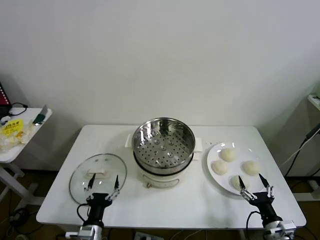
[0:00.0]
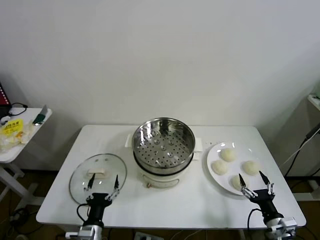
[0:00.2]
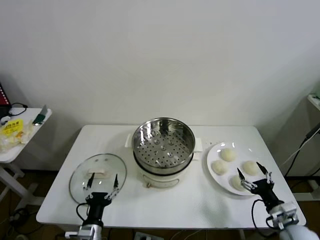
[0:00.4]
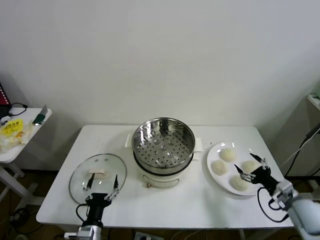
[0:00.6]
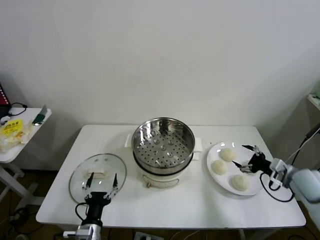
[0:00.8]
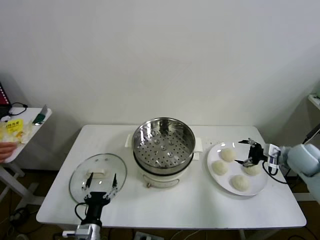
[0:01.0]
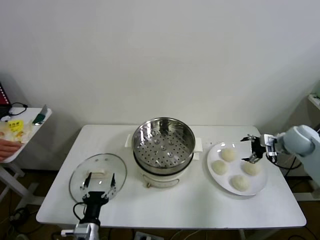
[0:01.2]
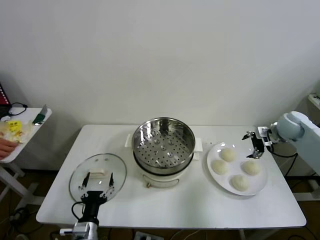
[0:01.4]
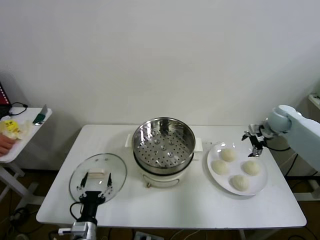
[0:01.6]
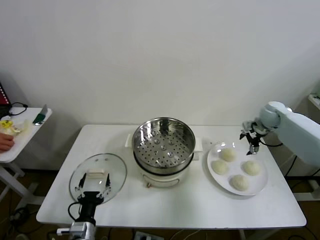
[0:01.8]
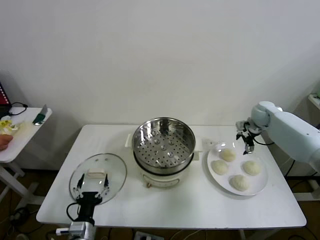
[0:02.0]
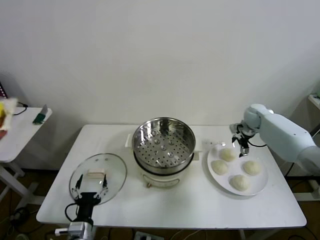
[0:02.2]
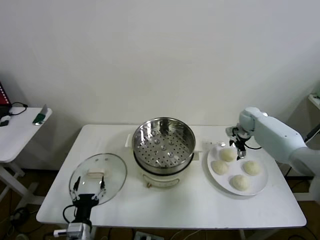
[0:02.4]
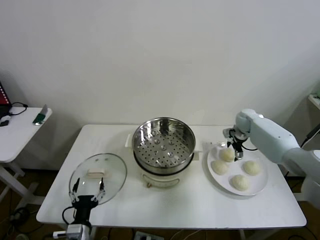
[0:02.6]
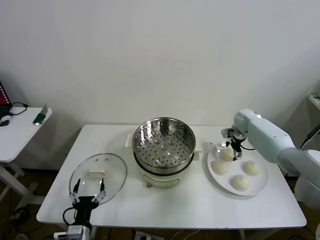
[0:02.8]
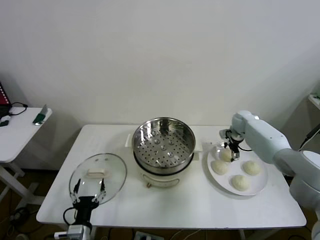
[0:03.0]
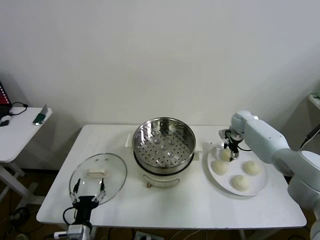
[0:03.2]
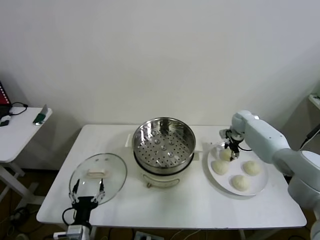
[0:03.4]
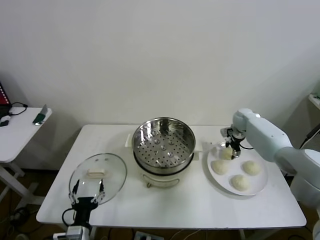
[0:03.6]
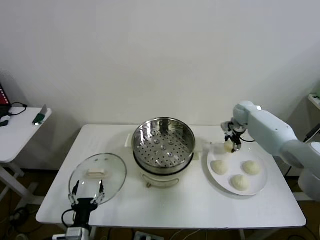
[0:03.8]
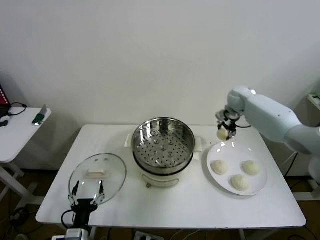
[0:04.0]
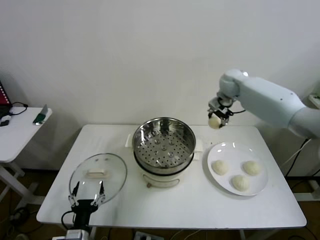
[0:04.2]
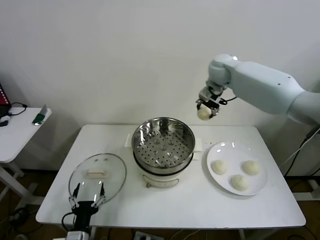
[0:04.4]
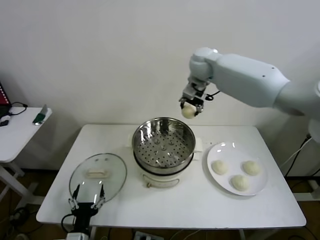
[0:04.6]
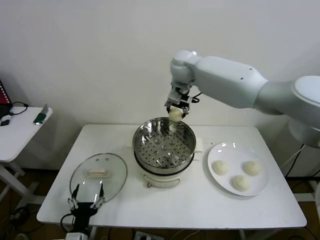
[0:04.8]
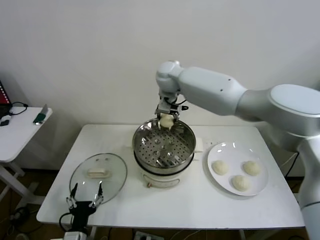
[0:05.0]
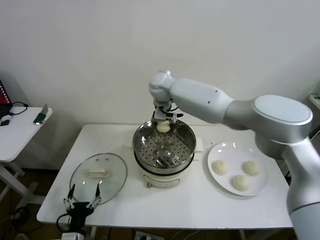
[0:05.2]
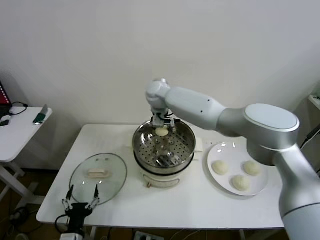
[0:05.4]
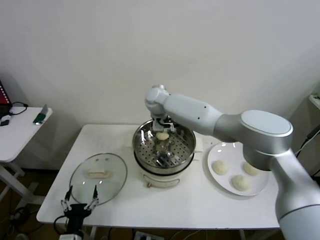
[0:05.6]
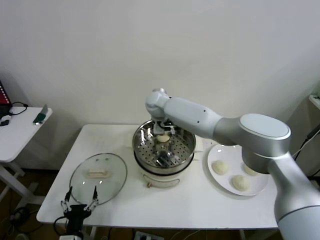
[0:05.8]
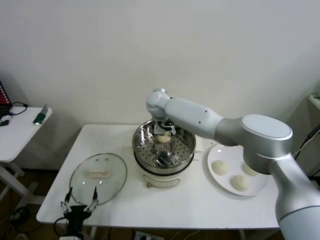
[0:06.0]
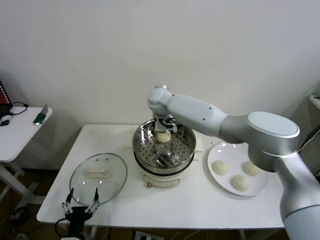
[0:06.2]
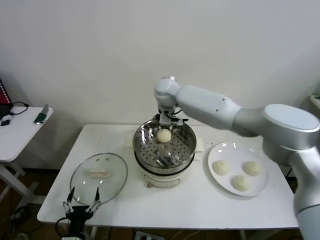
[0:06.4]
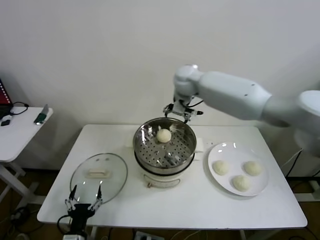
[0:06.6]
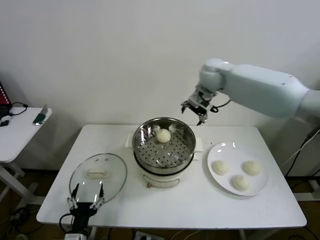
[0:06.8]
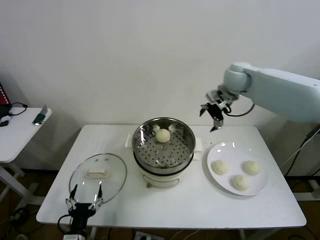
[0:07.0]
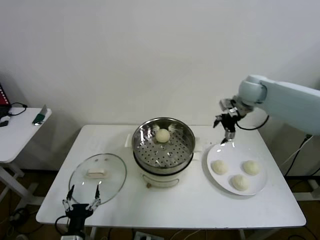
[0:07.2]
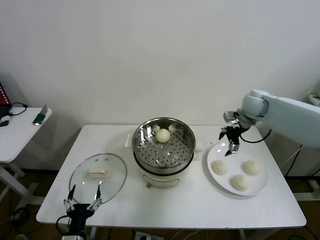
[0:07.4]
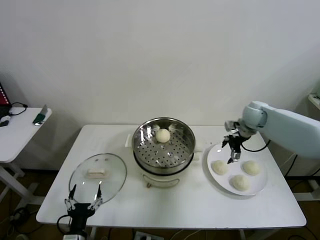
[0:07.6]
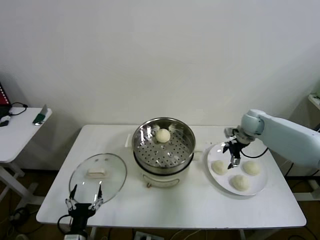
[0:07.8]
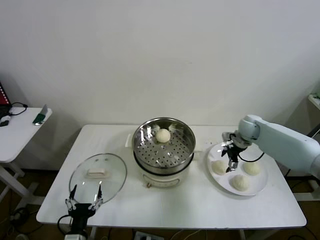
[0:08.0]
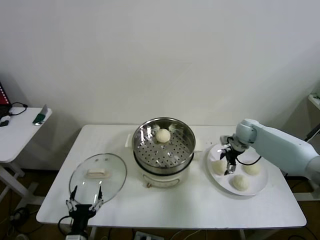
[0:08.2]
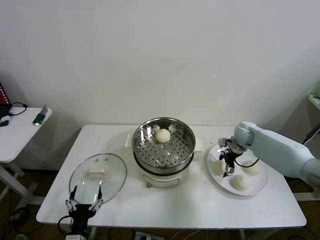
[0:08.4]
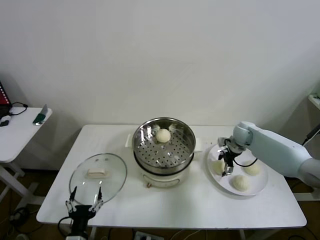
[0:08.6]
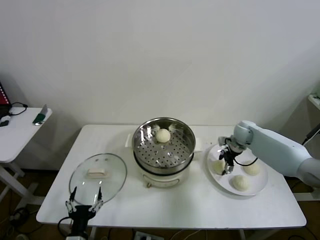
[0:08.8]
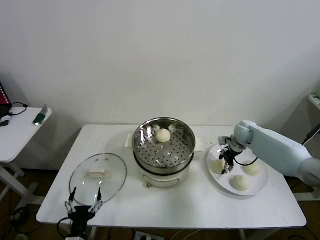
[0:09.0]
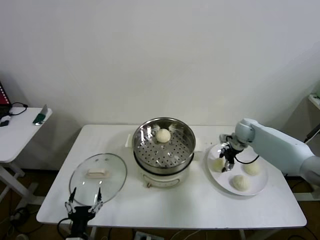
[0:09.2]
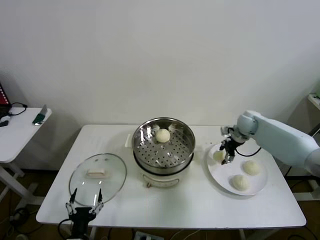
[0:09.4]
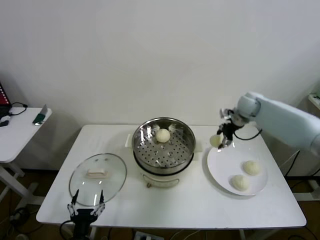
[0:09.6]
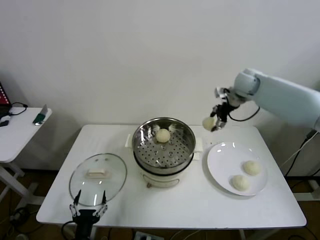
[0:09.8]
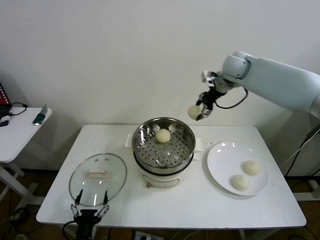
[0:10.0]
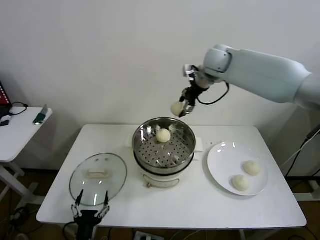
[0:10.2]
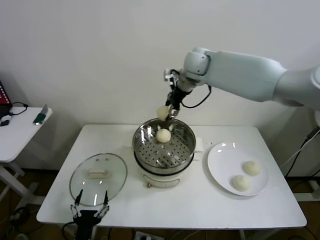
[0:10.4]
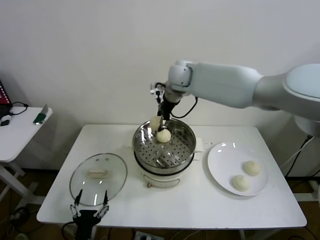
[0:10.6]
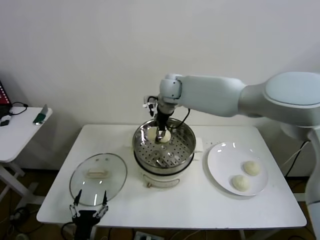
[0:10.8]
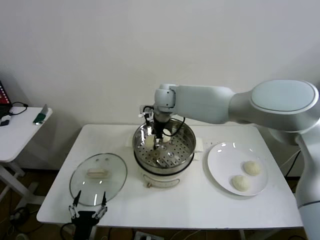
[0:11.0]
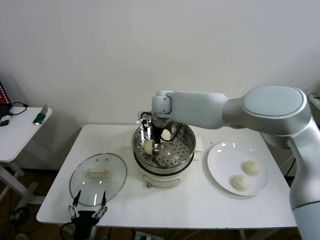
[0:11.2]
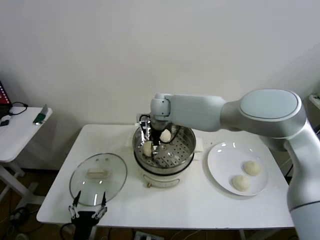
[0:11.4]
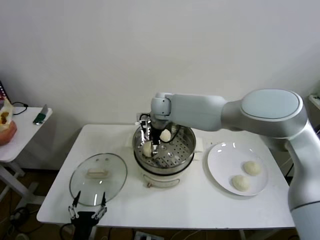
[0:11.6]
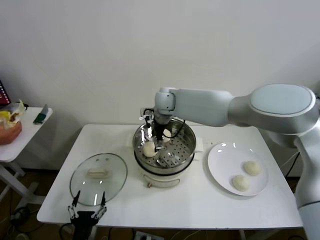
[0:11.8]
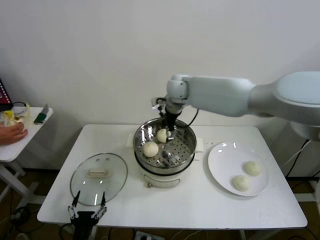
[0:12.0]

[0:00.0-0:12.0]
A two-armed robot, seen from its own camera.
Step, 0:00.0 to 0:03.2: Grasp the baozi in the plate with right gripper.
Step, 0:03.4 to 0:06.0: Place the baozi on the steamer with right gripper.
Step, 0:06.2 to 0:08.6: Grasp the baozi in the plate with right gripper.
Step, 0:08.8 to 0:11.4: Place the baozi on the steamer with right gripper.
0:01.6 to 0:03.0: The right gripper goes approximately 15 cm downward, to the left and forward.
0:03.0 to 0:04.4: The right gripper travels upward and to the left by roughly 35 cm, and closes.
0:04.4 to 0:06.0: The right gripper heads to the left and downward, covering approximately 20 cm, and opens up.
0:06.0 to 0:07.6: The right gripper travels to the right by roughly 35 cm.
0:07.6 to 0:09.0: The right gripper travels downward by approximately 10 cm, and closes its fingers.
0:09.0 to 0:10.4: The right gripper shifts about 35 cm upward and to the left.
0:10.4 to 0:12.0: The right gripper opens.

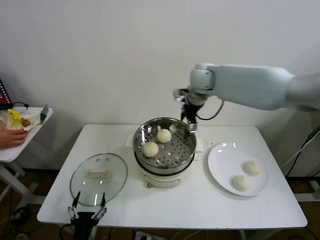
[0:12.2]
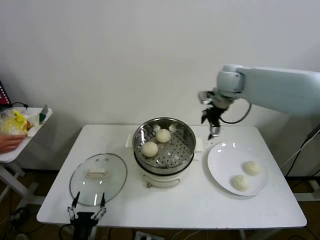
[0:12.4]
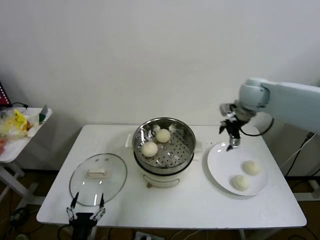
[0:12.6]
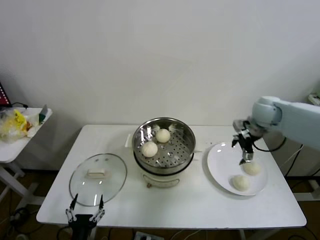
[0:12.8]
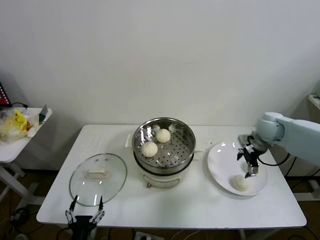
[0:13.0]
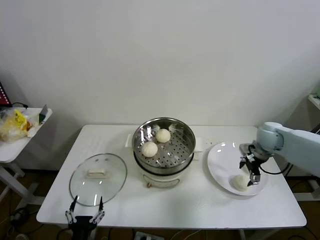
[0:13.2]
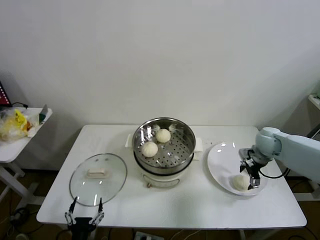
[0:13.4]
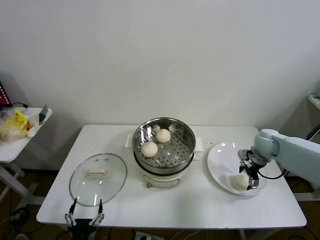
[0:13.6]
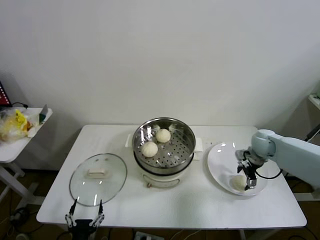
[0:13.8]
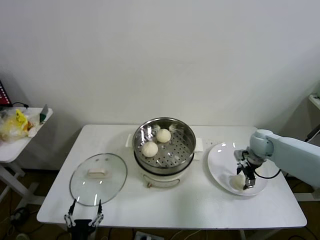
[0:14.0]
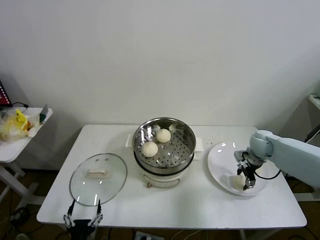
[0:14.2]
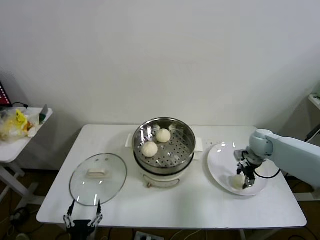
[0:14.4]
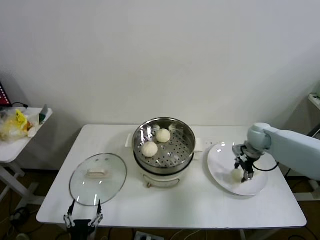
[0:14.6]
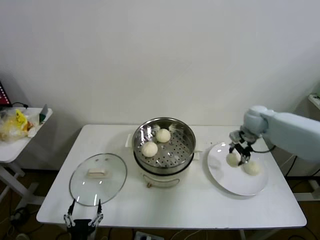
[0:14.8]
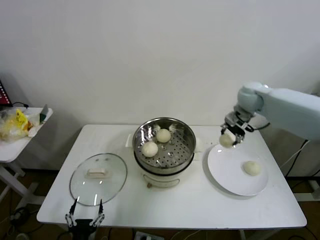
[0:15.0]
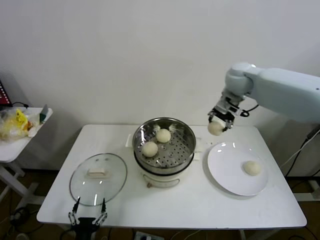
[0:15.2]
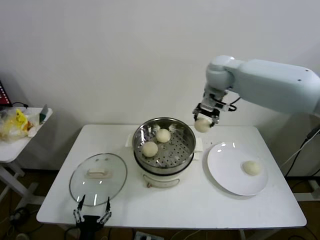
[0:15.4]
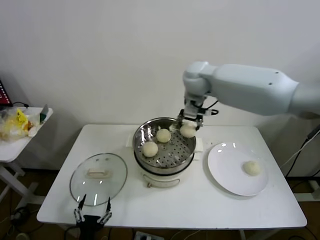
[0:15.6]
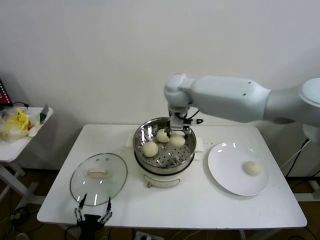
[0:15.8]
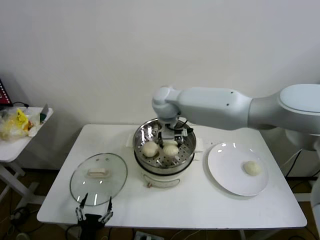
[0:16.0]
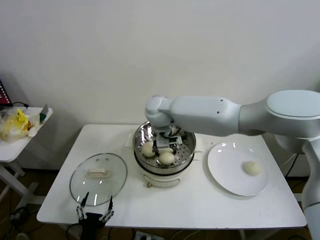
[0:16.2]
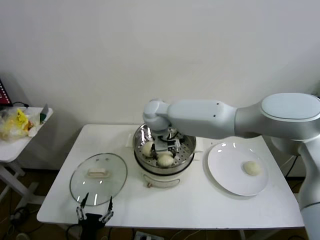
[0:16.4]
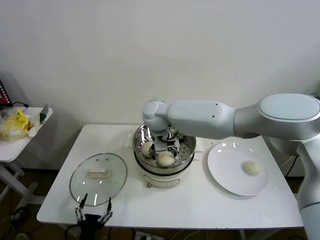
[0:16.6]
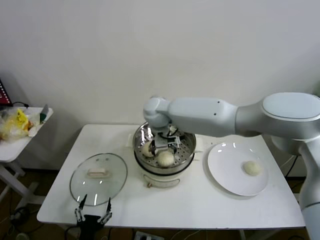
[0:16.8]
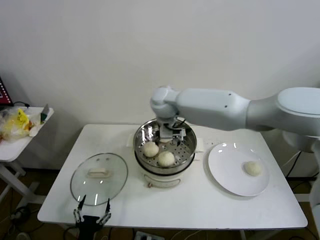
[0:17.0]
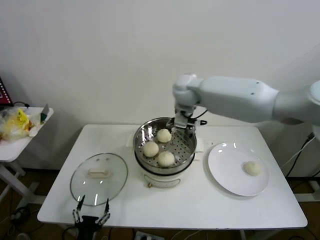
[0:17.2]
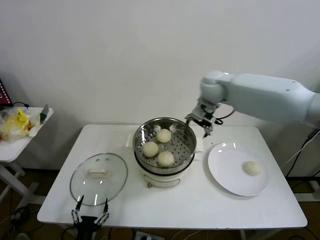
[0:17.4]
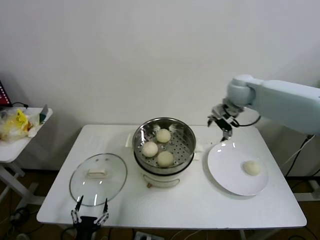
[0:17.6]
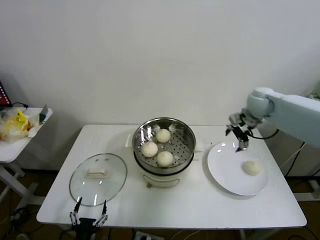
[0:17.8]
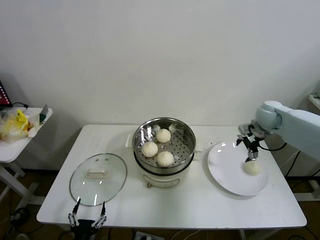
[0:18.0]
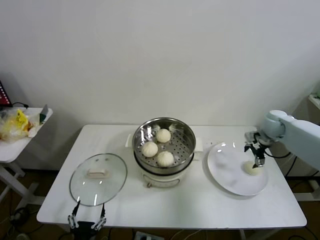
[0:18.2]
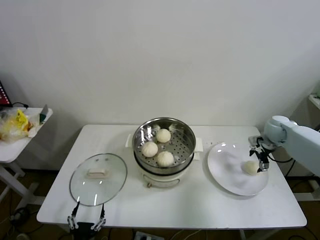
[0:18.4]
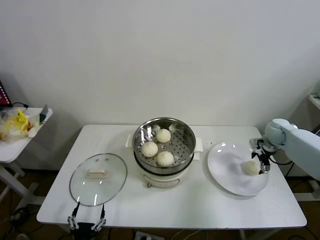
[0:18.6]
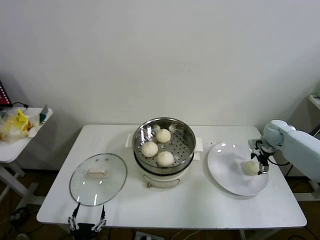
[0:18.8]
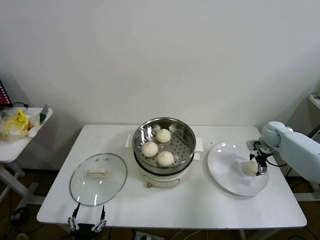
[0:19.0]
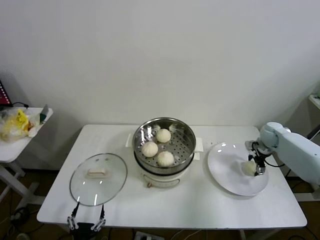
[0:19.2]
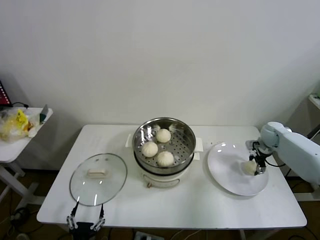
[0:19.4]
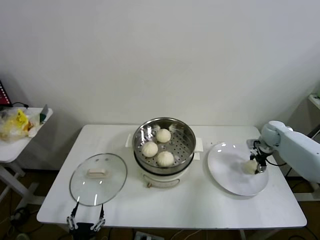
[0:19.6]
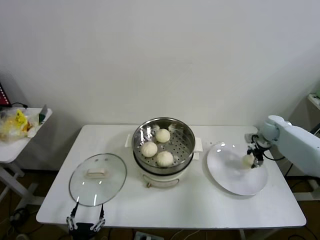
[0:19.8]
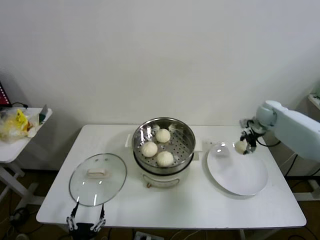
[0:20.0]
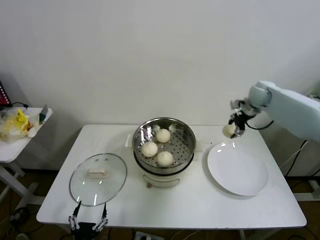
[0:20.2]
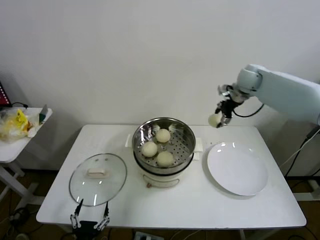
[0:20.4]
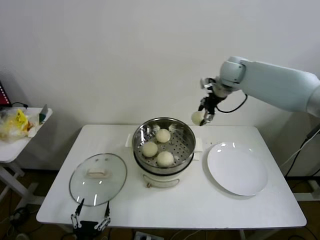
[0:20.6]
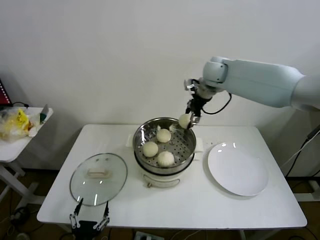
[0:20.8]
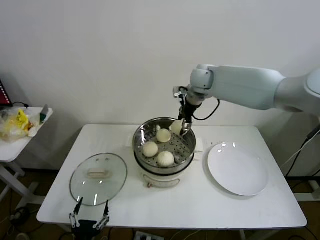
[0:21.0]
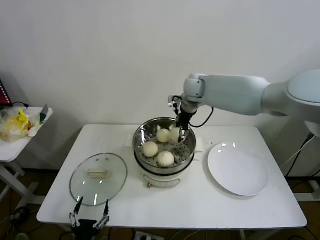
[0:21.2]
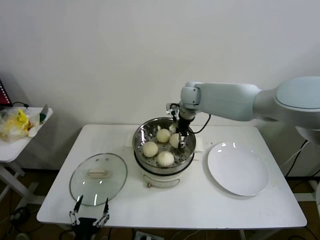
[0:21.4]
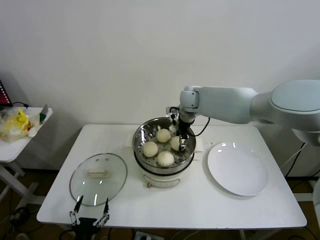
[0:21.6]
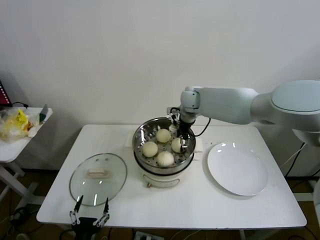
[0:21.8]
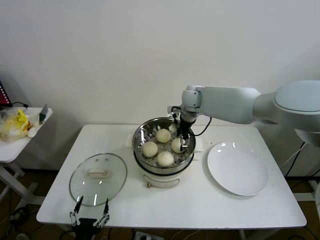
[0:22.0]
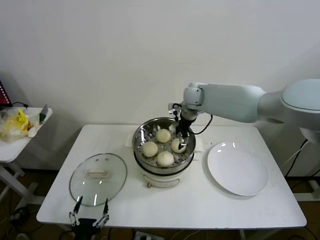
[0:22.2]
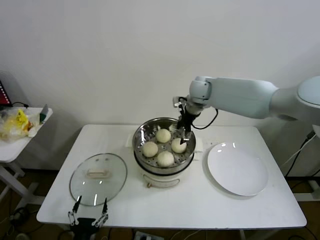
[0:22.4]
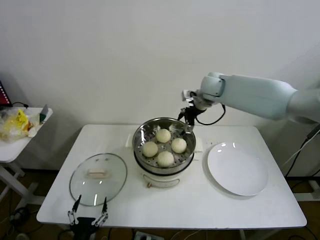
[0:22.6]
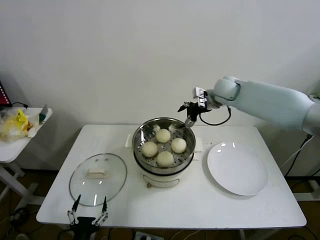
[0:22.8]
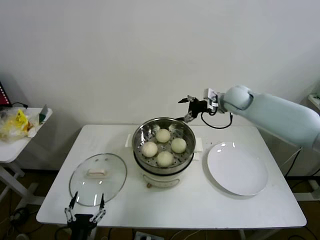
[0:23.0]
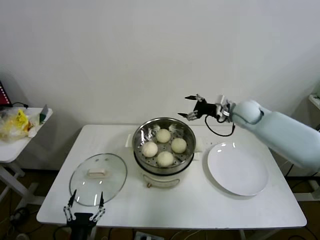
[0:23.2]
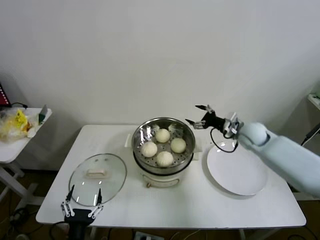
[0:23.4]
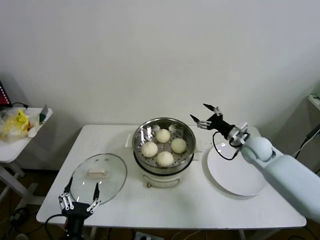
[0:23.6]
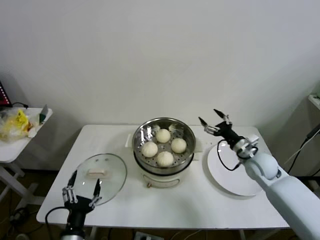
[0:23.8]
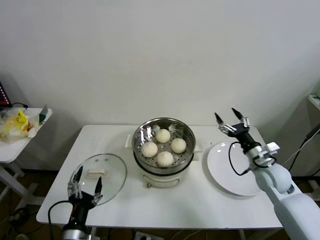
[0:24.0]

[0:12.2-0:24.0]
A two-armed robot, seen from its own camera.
Step, 0:12.2 to 0:14.0: Grasp the baozi in the plate with right gripper.
Step, 0:14.2 to 0:16.4: Place the baozi on the steamer with right gripper.
Step, 0:16.6 to 0:19.2: Grasp the baozi in the plate with right gripper.
Step, 0:19.4 to 0:21.6: Place the baozi on the steamer with right gripper.
0:12.2 to 0:13.6: The right gripper travels downward and to the right by some 30 cm.
0:13.6 to 0:15.2: The right gripper shifts about 30 cm upward and to the left, and closes its fingers.
0:15.2 to 0:16.6: The right gripper shifts about 25 cm to the left and downward, and opens.
0:16.6 to 0:18.2: The right gripper travels to the right by approximately 40 cm.
0:18.2 to 0:19.6: The right gripper shifts roughly 5 cm downward, and closes.
0:19.6 to 0:21.0: The right gripper is displaced to the left and upward by about 40 cm.
0:21.0 to 0:22.6: The right gripper heads to the right, covering some 5 cm, and opens its fingers.
0:22.6 to 0:24.0: The left gripper shifts by approximately 5 cm. Meanwhile the right gripper is displaced backward, downward and to the right by some 35 cm.
